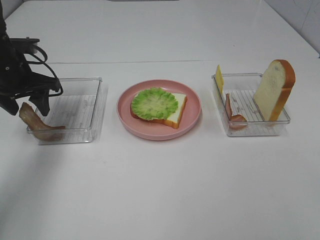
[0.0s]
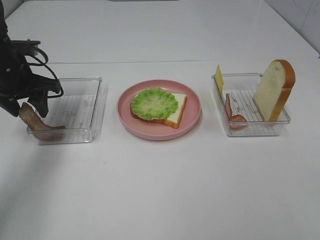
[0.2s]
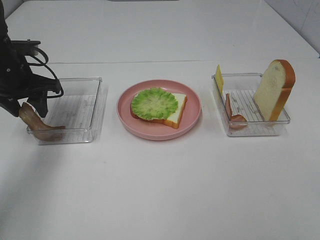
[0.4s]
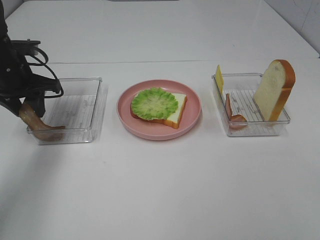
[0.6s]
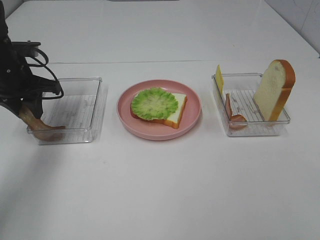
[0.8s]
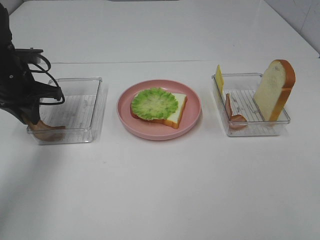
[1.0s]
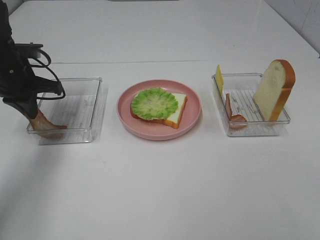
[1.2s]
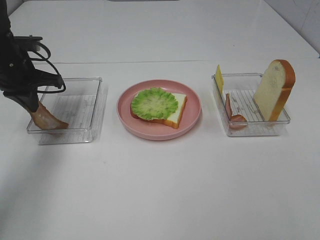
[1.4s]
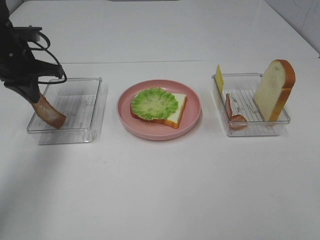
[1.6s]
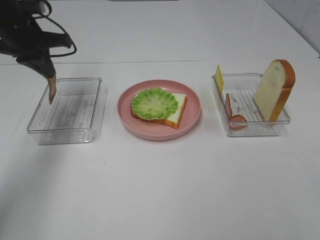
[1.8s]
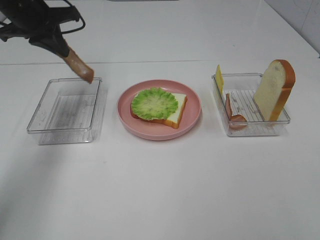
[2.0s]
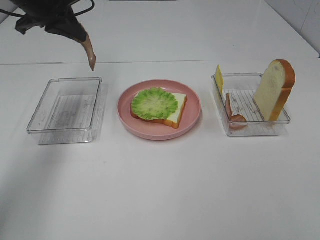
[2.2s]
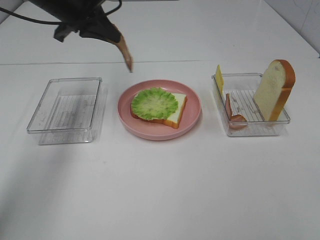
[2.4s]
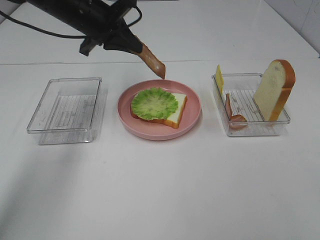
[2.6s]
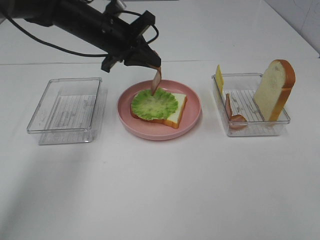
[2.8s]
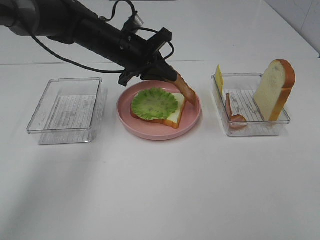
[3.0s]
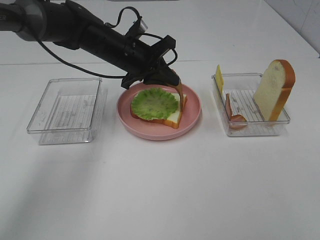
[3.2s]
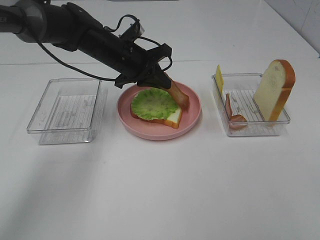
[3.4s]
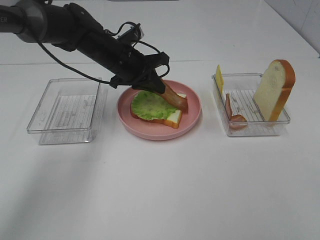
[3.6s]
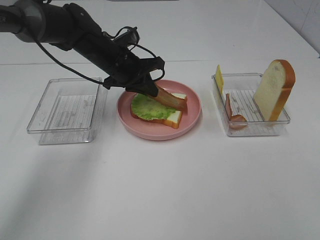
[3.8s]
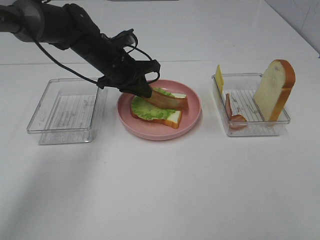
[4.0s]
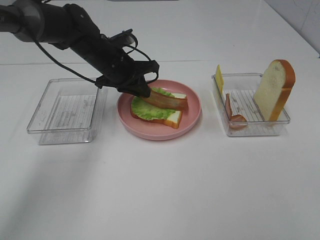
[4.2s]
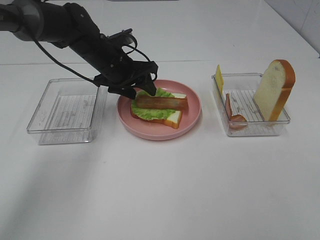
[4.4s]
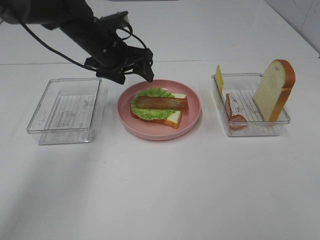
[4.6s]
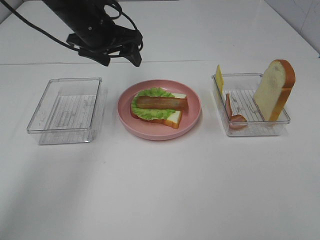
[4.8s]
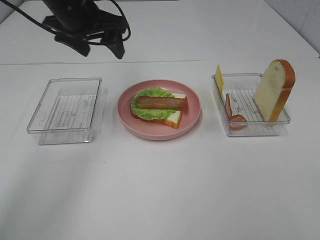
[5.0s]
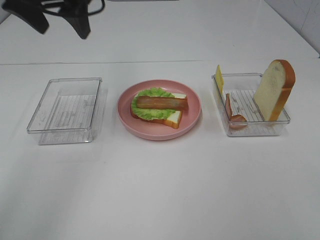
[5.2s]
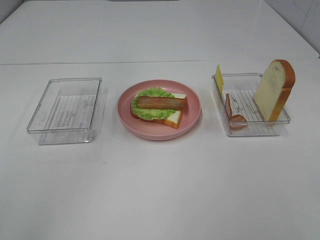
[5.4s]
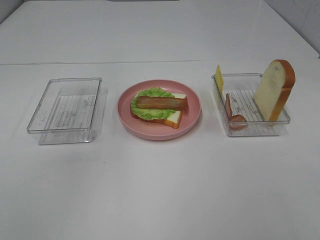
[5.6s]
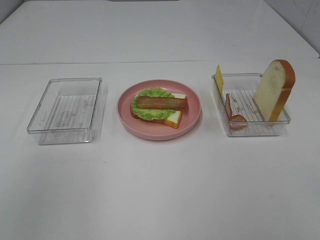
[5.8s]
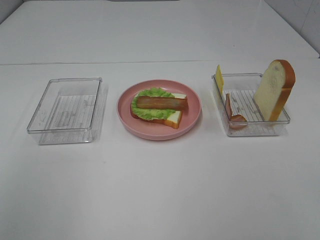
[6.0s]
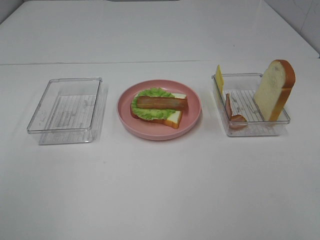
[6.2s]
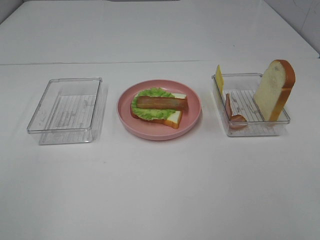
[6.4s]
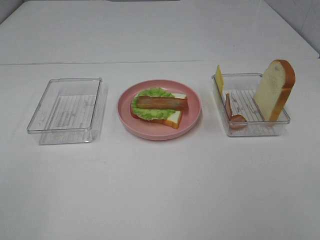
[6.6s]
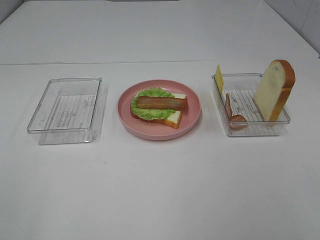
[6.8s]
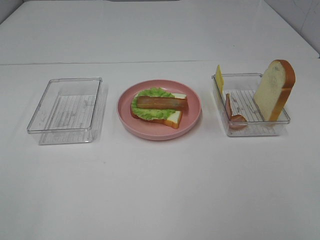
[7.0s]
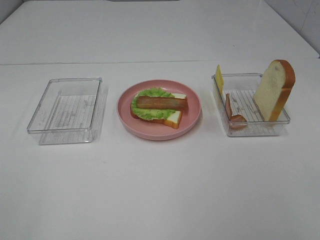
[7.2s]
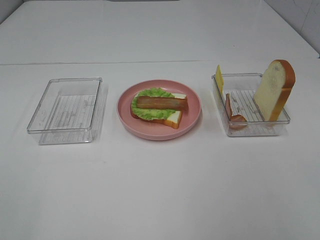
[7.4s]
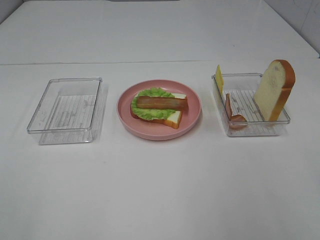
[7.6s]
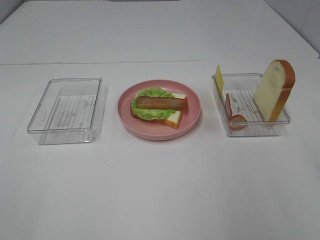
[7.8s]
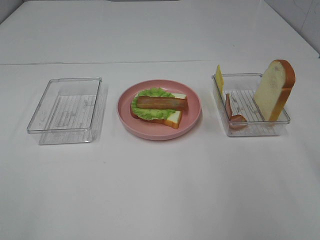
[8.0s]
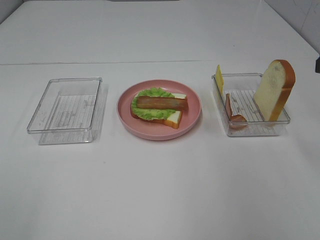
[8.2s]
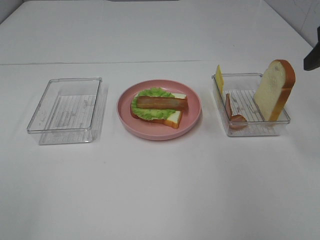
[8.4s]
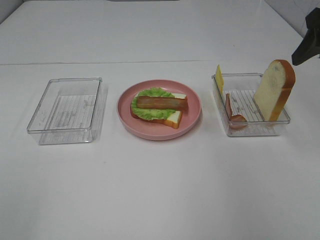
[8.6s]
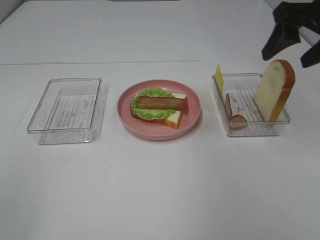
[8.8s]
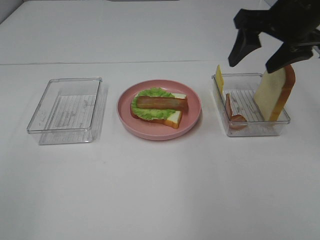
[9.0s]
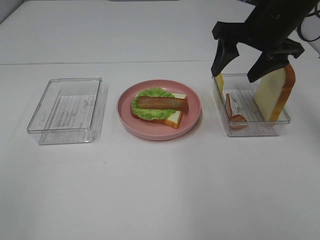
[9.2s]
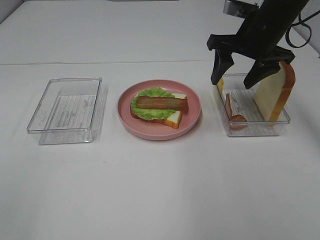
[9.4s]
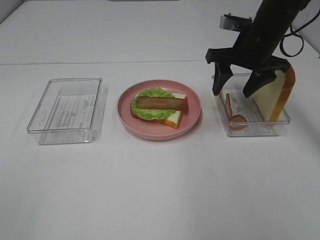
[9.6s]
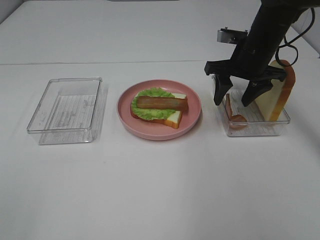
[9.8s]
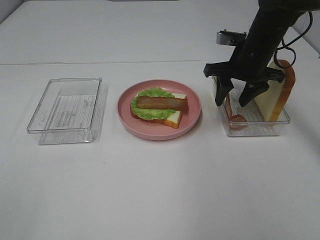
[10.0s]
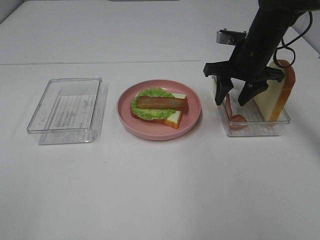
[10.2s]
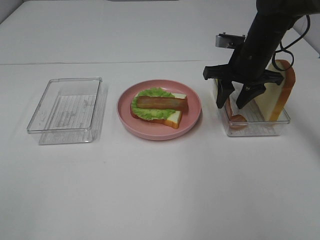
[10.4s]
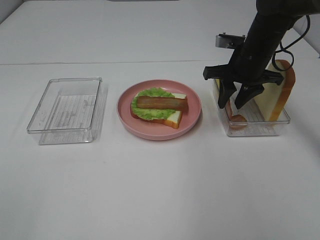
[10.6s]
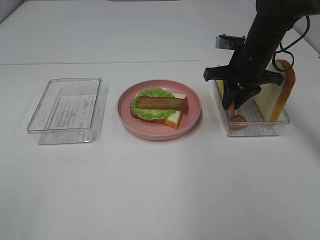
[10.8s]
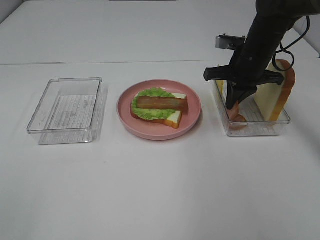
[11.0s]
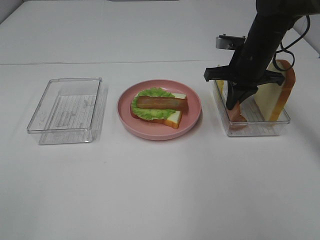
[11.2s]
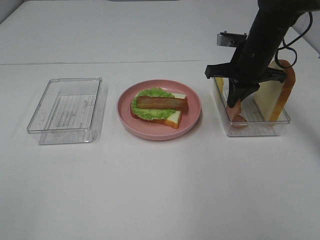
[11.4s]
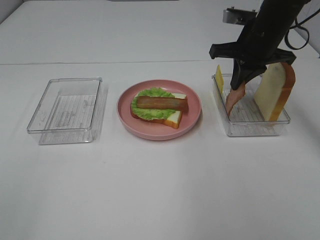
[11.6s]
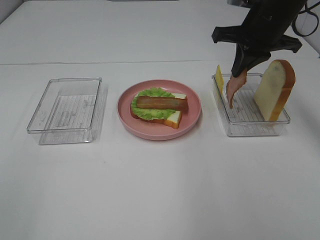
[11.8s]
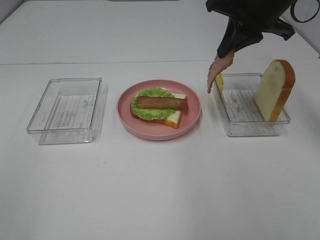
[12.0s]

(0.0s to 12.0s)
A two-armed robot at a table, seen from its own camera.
Task of the whole recording: Make sandwiches.
Step, 1.4s - 4.4s: Left hand:place bacon on lettuce slice.
Step, 4.6s - 11.4s: Right hand:grab the bacon.
0.0s - 1.6s: The left gripper closes its fingers.
1.6s - 3.0s: The left gripper travels to the right by some 20 cm.
3.0s - 4.4s: The left gripper opens.
4.4s - 6.0s: The left gripper moves backward, upward and to the left, some 40 cm.
7.6s - 9.0s: The right gripper heads forward, covering approximately 30 cm.
9.0s - 10.4s: The right gripper travels downward and forward by approximately 15 cm, and closes up.
10.4s - 12.0s: The right gripper moves upward, some 10 cm, and closes its fingers.

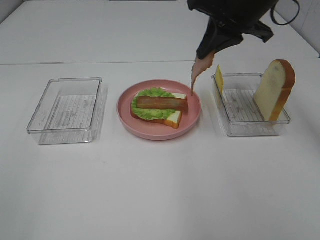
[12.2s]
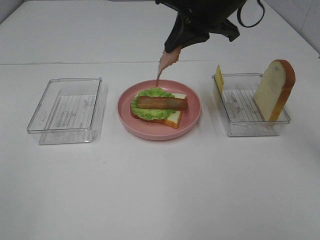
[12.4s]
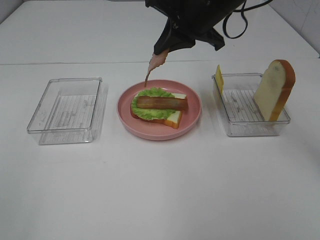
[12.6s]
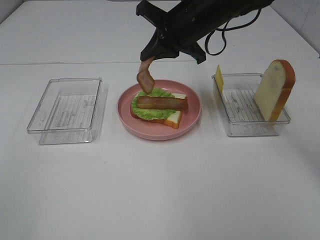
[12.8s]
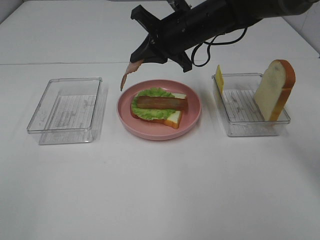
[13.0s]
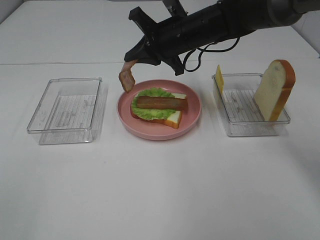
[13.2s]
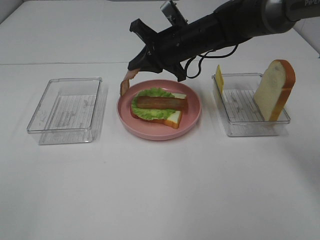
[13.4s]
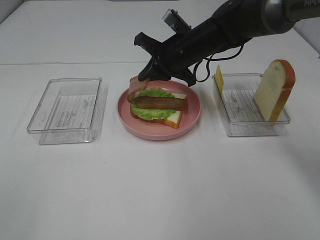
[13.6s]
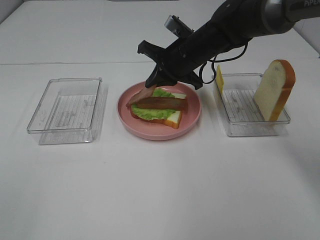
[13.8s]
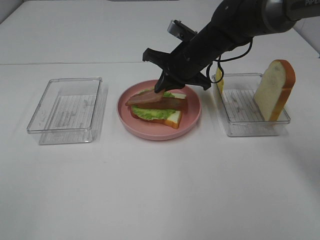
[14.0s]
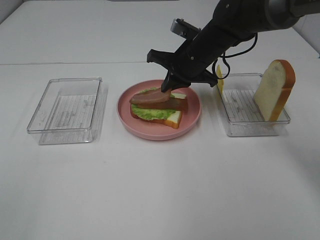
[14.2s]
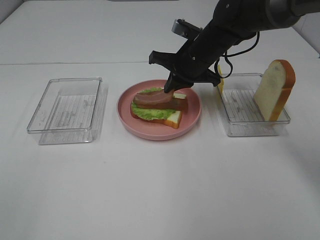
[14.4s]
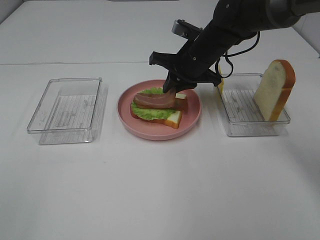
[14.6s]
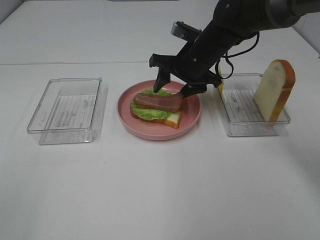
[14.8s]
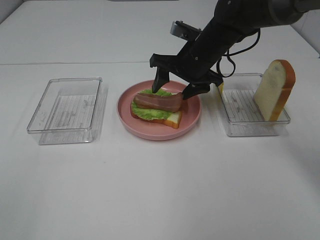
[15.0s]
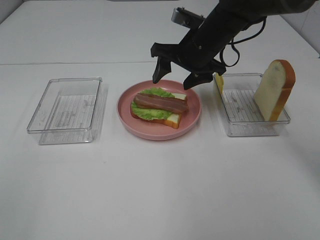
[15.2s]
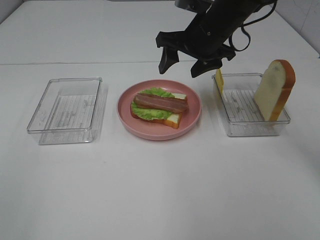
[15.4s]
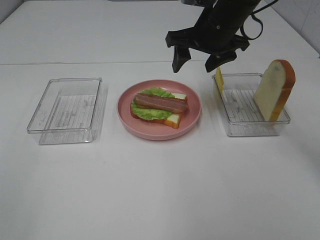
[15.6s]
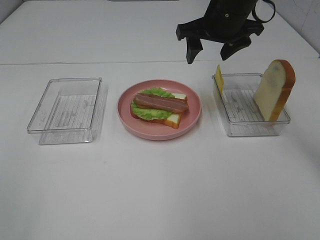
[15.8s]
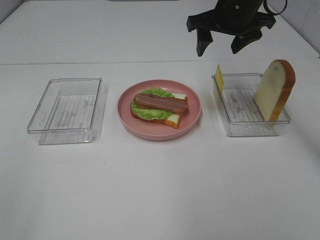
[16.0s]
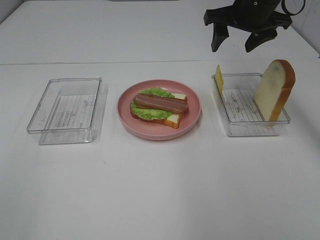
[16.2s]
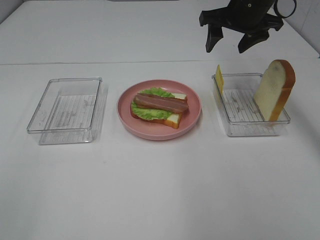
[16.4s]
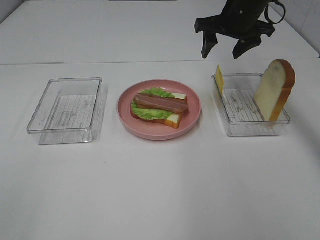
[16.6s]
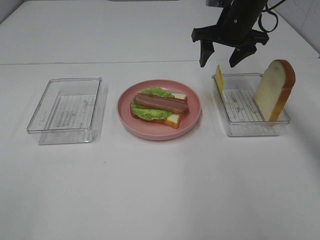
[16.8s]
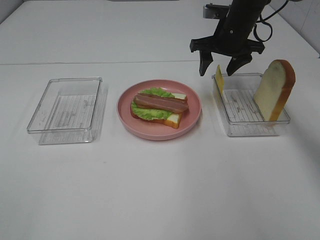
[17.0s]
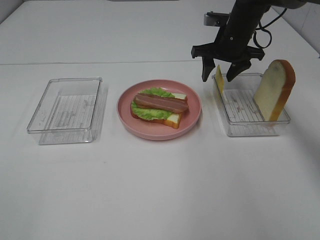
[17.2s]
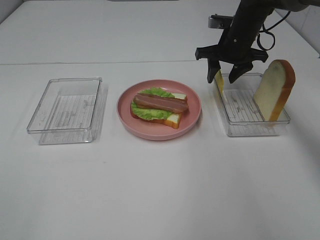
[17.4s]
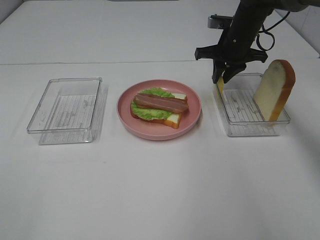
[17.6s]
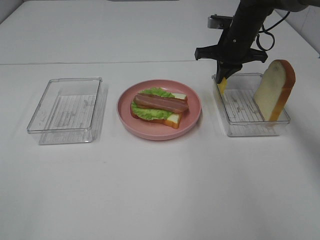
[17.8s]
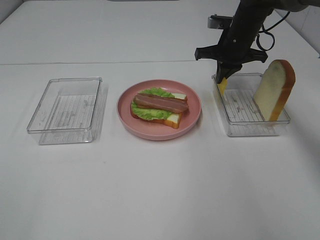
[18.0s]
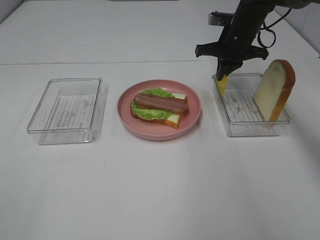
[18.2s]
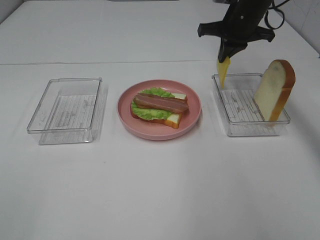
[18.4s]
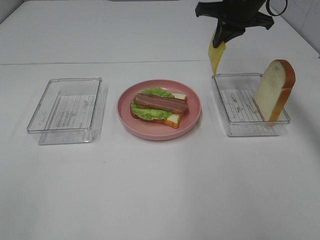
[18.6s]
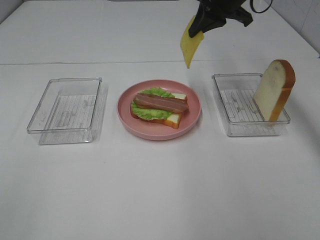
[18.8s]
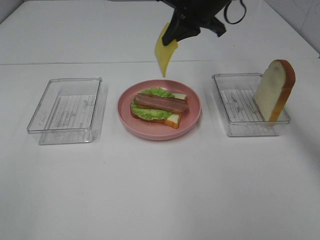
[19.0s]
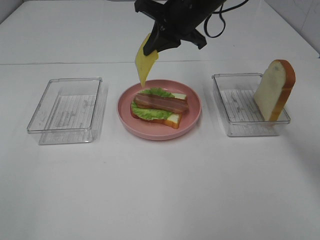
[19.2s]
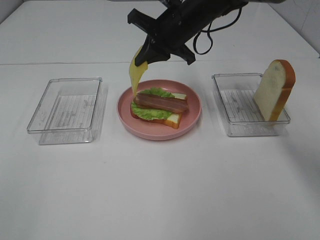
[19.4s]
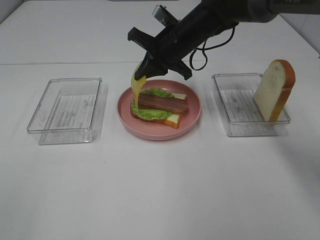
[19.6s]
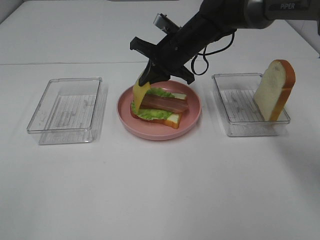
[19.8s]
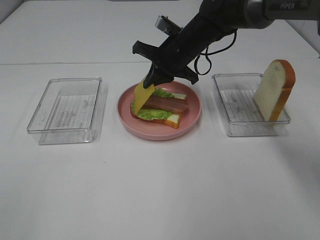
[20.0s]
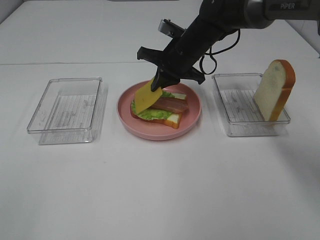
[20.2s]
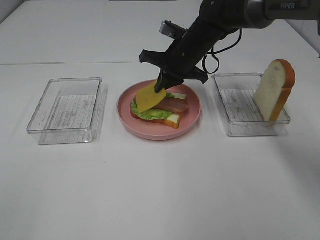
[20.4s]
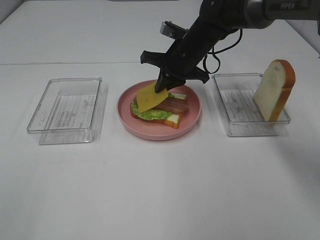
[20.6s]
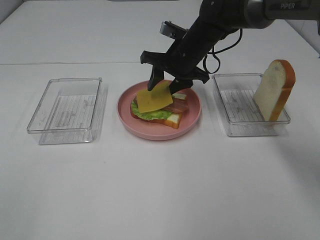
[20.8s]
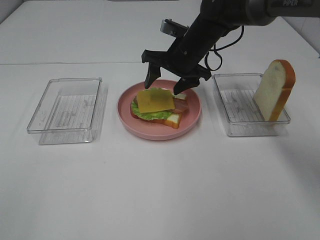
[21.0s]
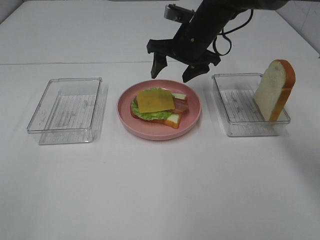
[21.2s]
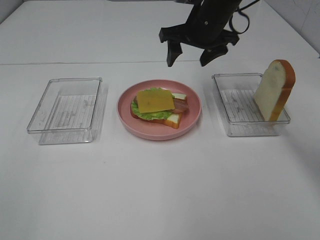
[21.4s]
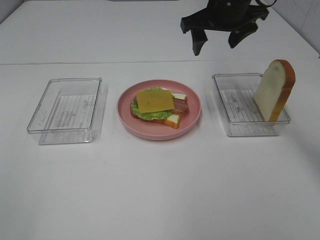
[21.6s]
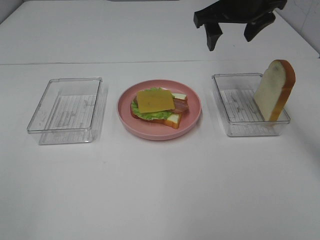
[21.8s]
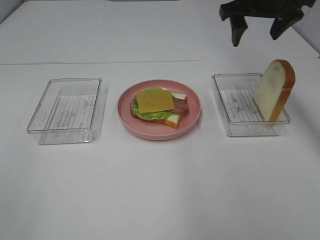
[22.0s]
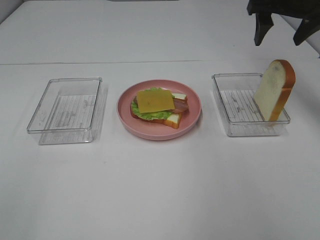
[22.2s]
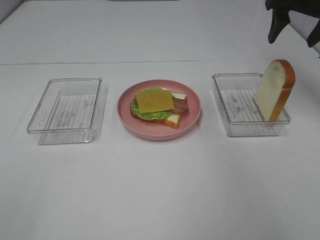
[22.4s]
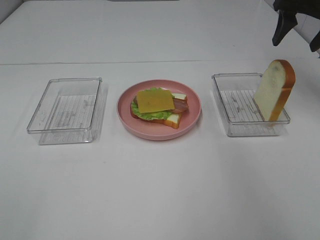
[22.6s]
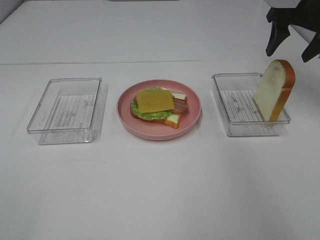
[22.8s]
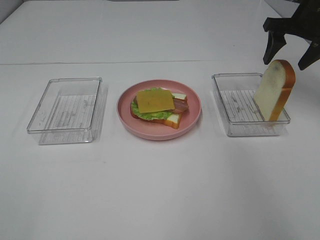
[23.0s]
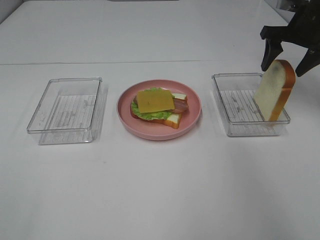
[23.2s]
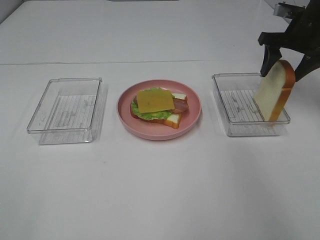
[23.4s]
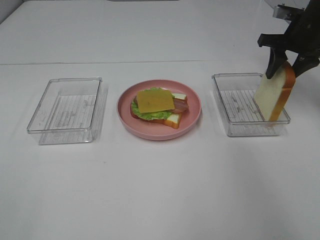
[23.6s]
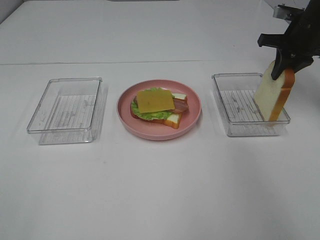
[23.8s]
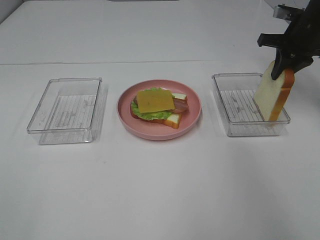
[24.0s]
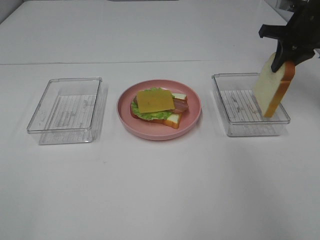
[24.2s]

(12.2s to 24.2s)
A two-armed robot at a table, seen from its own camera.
Task of the whole recording: Make sandwiches.
Step, 12.2s - 15.2s: Right hand:place bacon on bacon.
Step, 15.4s - 17.8s: Right hand:grab the cheese slice.
Step, 18.0s - 21.0s: Right hand:place the cheese slice on top of the bacon.
Step, 21.2s - 23.8s: Right hand:grab the bread slice.
12.2s - 13.8s: The right gripper is displaced downward and to the left by approximately 15 cm.
13.8s - 15.2s: The right gripper opens its fingers.
15.2s - 16.6s: The right gripper moves to the right and forward, approximately 10 cm.
16.6s - 18.2s: The right gripper moves downward, some 5 cm, and closes up.
18.2s - 19.8s: The right gripper travels to the left by roughly 10 cm.
19.8s - 21.2s: The right gripper opens its fingers.
21.2s - 22.6s: The right gripper is displaced to the right and upward by approximately 25 cm.
22.6s - 24.2s: The right gripper travels downward by approximately 5 cm, and closes its fingers.
